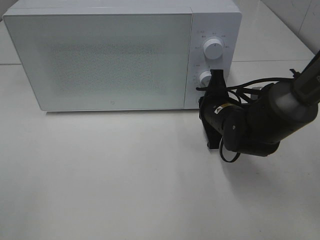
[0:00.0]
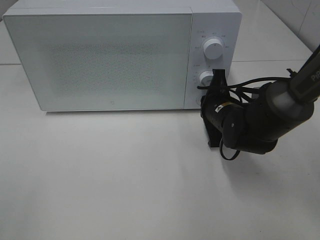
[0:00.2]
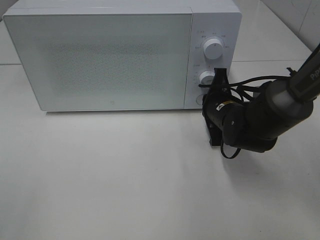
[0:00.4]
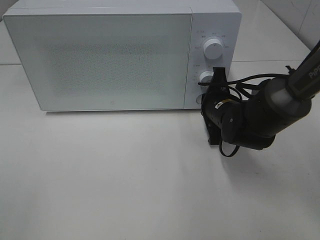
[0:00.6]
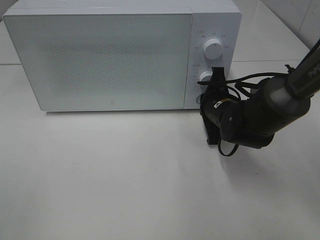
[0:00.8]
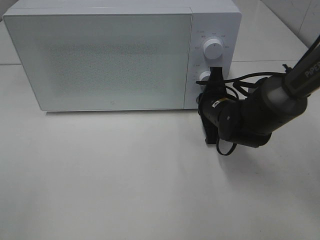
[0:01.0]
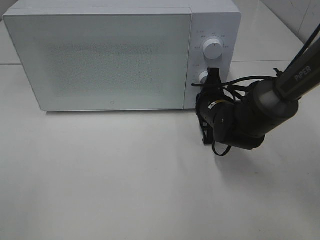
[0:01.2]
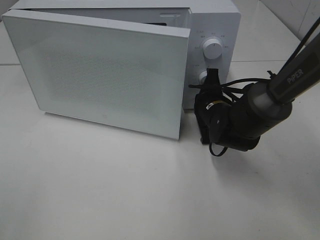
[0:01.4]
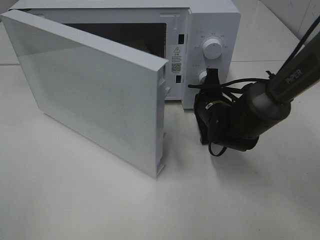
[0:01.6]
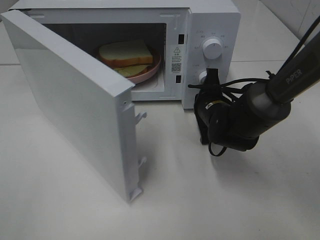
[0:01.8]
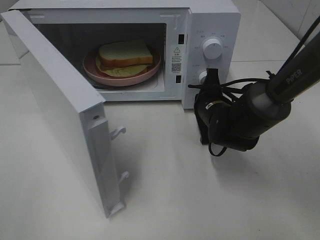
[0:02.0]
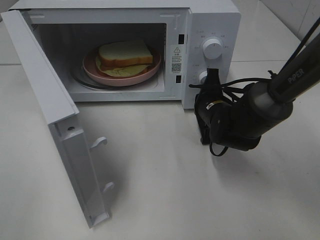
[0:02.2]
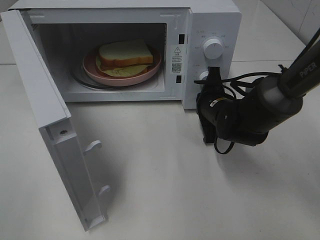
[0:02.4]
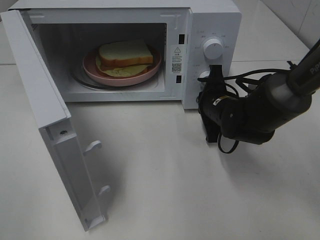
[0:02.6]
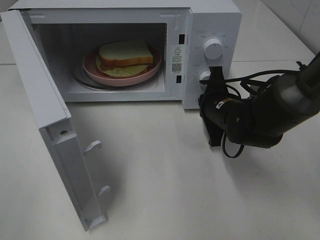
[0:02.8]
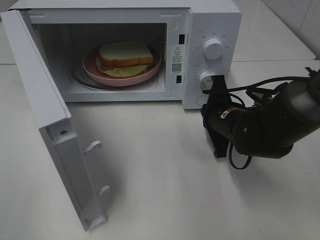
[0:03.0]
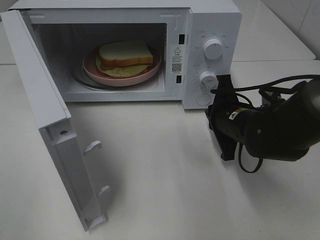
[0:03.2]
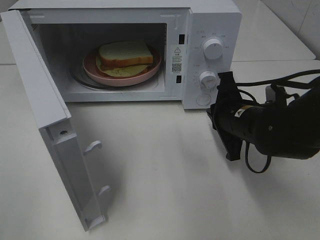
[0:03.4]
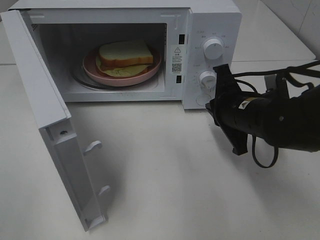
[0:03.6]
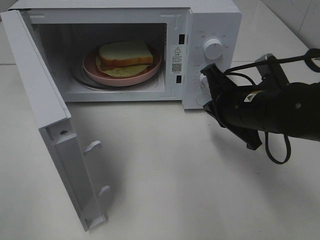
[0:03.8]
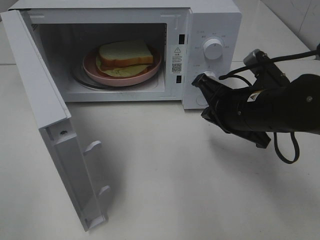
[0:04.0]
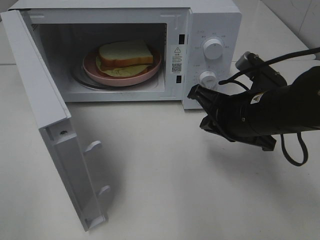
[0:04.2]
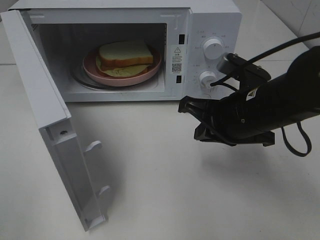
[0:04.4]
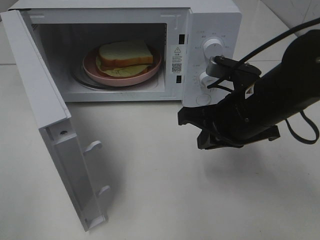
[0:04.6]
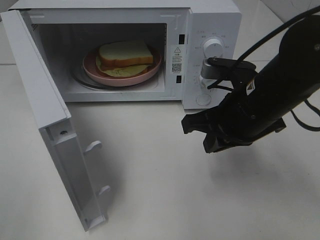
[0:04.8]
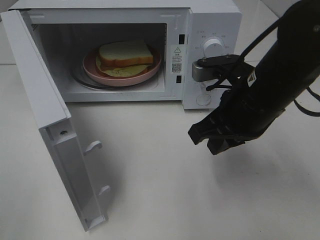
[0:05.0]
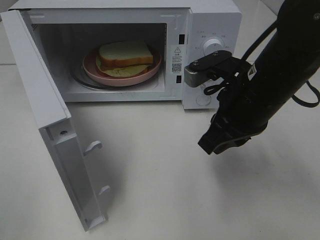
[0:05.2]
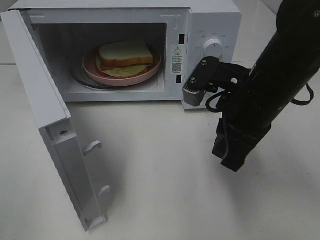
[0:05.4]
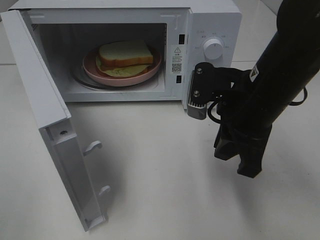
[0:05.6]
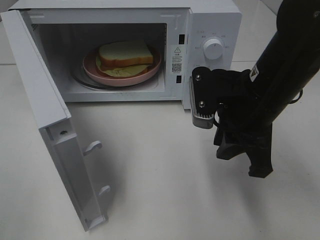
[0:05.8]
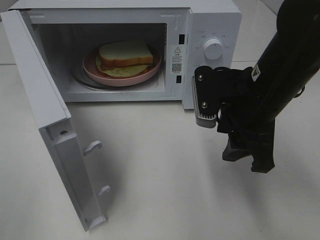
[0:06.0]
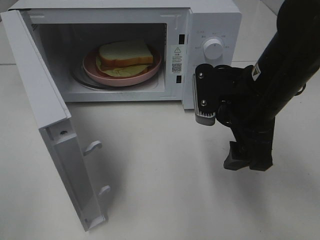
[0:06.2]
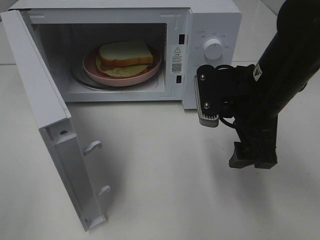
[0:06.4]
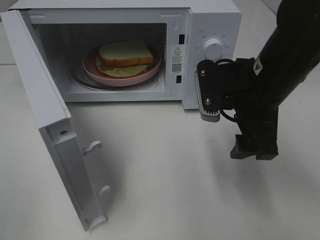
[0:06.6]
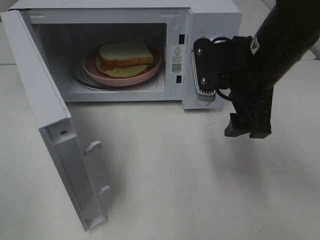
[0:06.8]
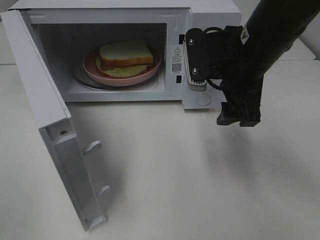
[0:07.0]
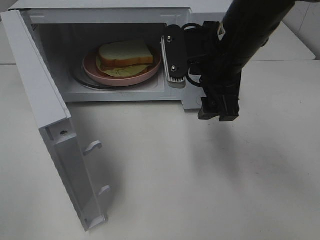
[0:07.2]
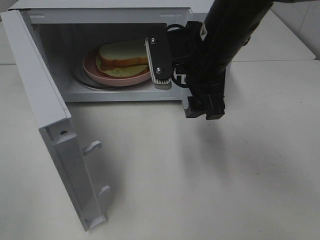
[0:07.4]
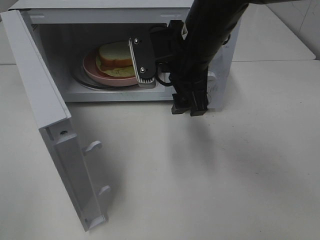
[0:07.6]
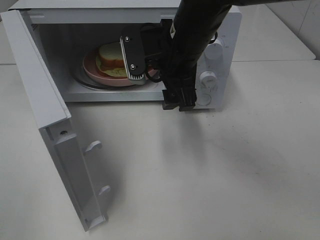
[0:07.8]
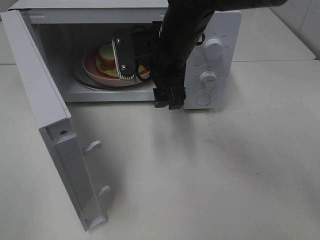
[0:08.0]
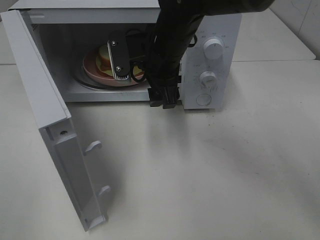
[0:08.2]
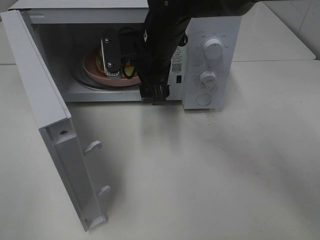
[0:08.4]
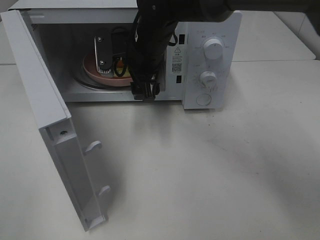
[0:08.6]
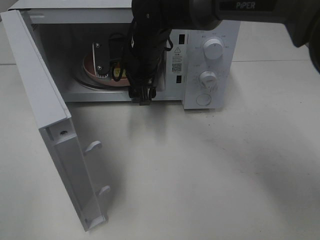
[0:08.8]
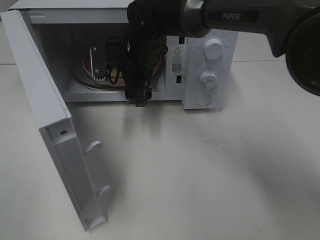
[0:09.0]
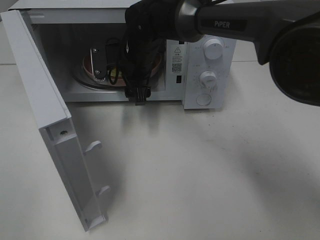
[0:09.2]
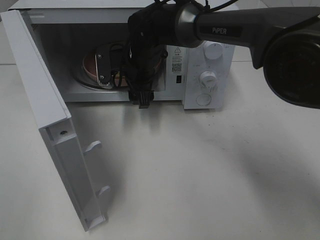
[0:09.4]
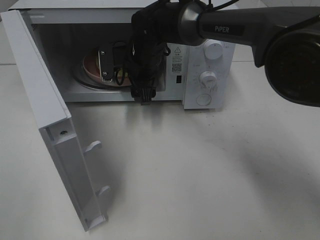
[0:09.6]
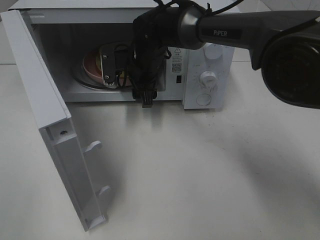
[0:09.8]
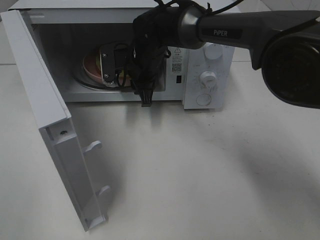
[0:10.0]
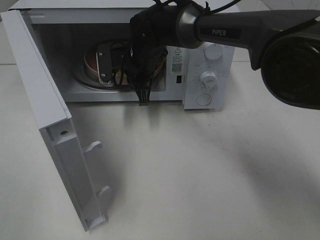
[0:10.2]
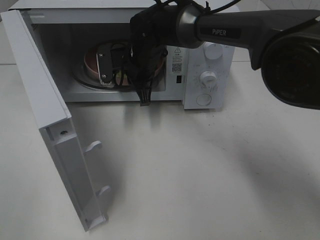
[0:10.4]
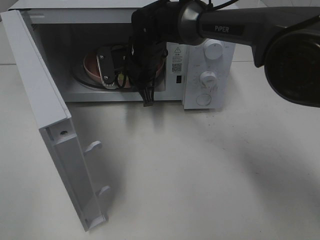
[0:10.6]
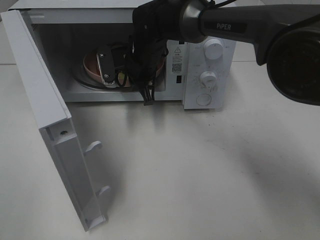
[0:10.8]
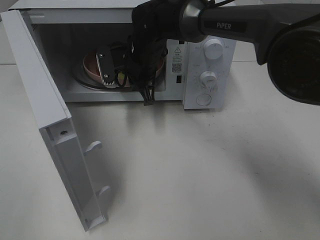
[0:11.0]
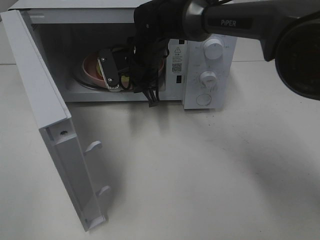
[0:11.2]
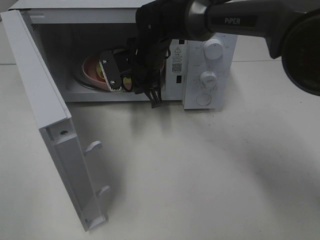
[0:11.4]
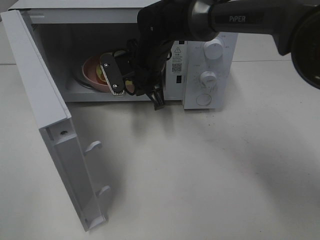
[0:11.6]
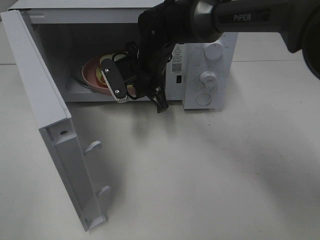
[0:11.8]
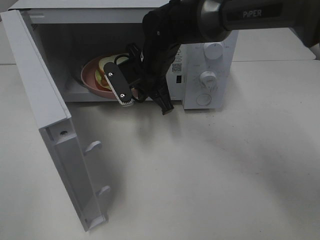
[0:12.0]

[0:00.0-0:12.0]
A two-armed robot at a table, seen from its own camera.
Task of the whole recording: Heat Sandwich.
Step, 0:00.0 to 0:03.0: Right hand: press the switch.
Step, 0:03.2 to 0:11.2: Right hand: grab the plate with the sandwich.
0:03.0 to 0:04.4: The right gripper goes about 10 cm upward and backward.
0:04.4 to 0:06.0: The right gripper opens its fingers.
0:06.0 to 0:07.6: The right gripper moves to the left and forward, roughly 10 cm.
0:07.6 to 0:09.0: The right gripper heads forward, to the left and downward, covering some 15 cm.
0:09.0 to 0:10.4: The right gripper closes up.
0:10.4 to 0:12.0: The right gripper changes place by about 5 cm.

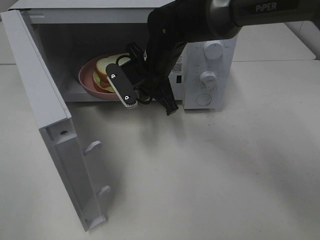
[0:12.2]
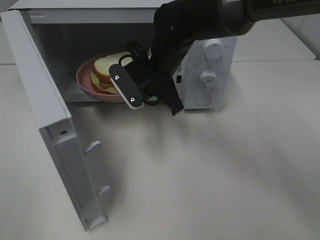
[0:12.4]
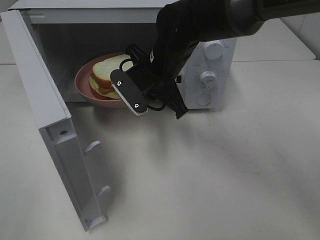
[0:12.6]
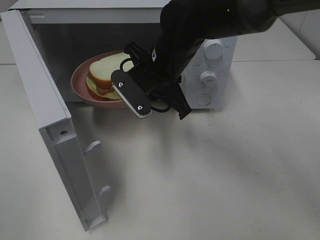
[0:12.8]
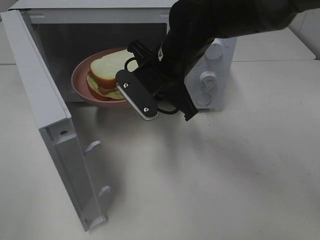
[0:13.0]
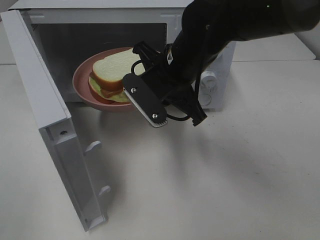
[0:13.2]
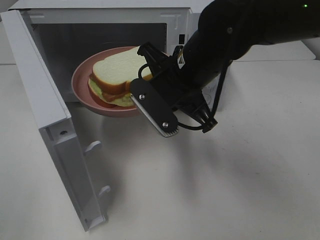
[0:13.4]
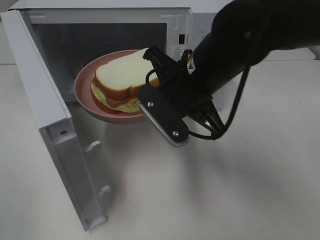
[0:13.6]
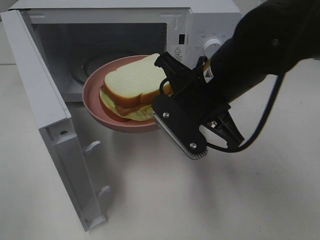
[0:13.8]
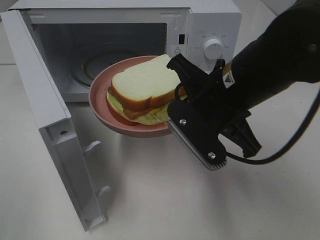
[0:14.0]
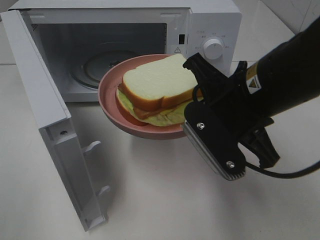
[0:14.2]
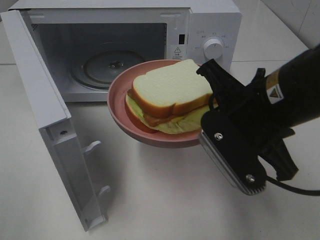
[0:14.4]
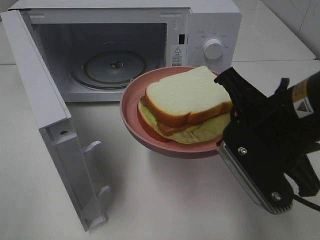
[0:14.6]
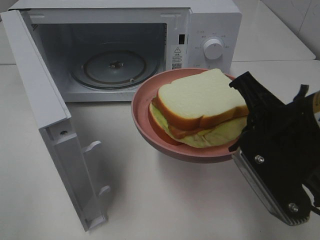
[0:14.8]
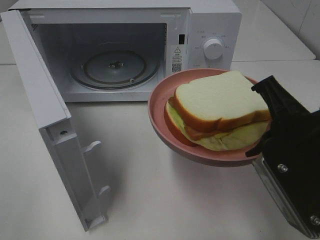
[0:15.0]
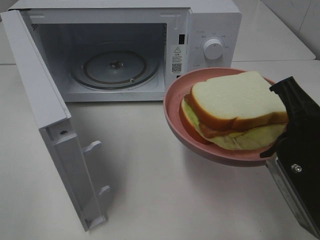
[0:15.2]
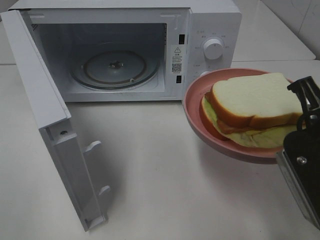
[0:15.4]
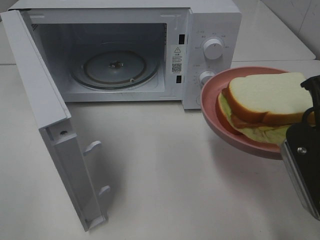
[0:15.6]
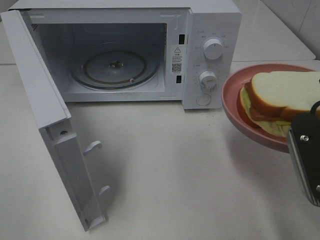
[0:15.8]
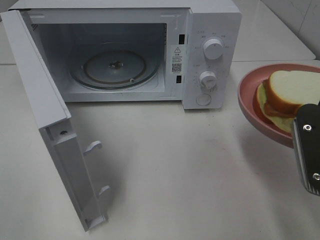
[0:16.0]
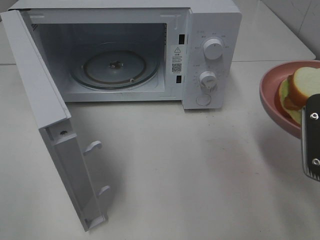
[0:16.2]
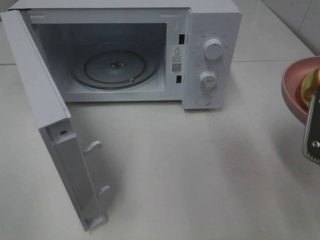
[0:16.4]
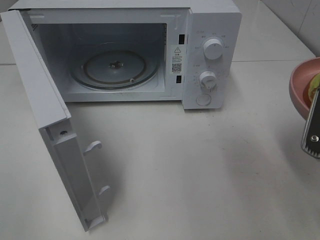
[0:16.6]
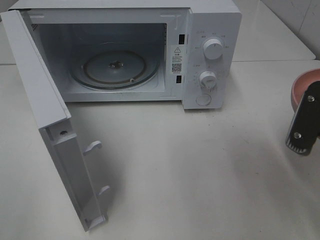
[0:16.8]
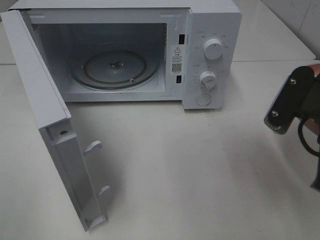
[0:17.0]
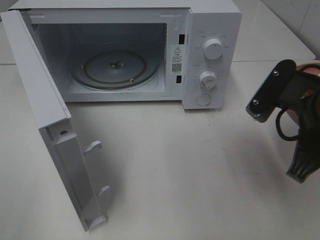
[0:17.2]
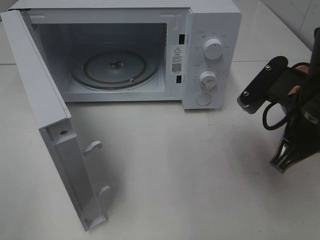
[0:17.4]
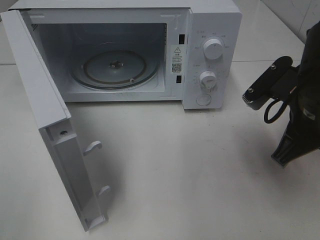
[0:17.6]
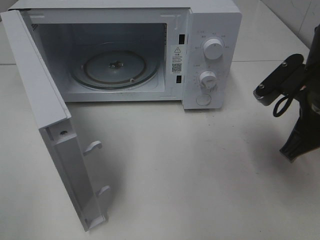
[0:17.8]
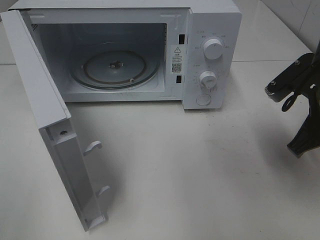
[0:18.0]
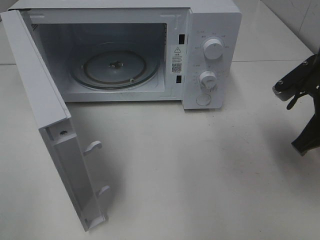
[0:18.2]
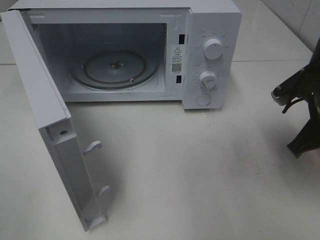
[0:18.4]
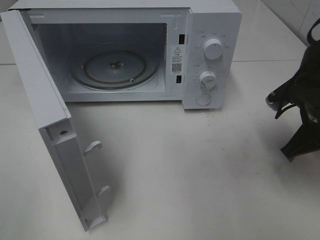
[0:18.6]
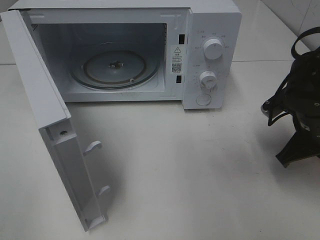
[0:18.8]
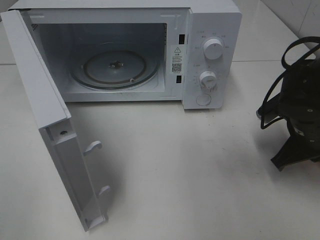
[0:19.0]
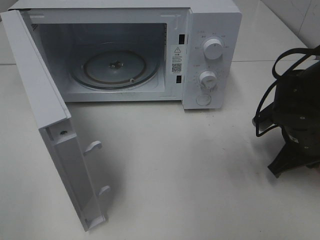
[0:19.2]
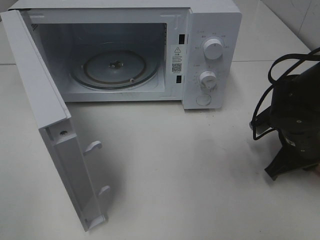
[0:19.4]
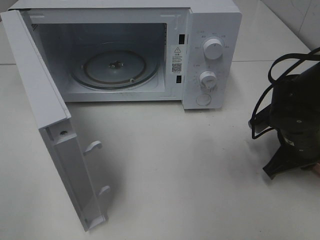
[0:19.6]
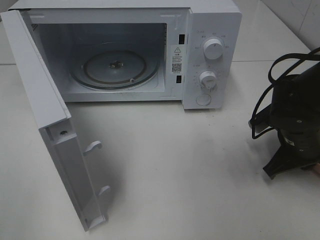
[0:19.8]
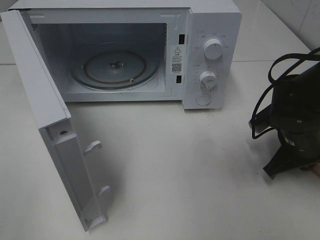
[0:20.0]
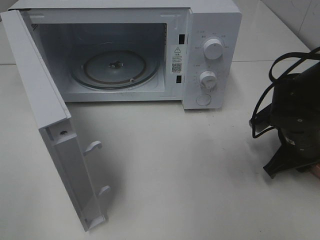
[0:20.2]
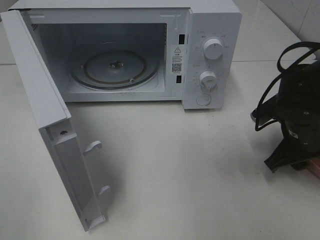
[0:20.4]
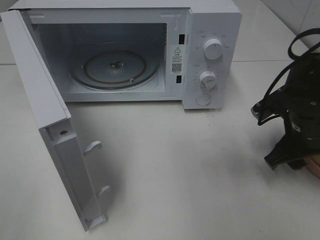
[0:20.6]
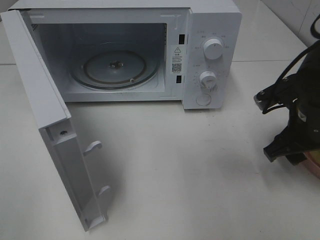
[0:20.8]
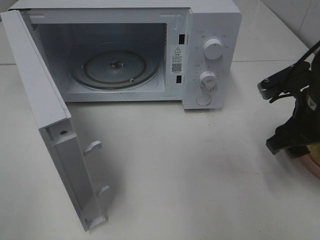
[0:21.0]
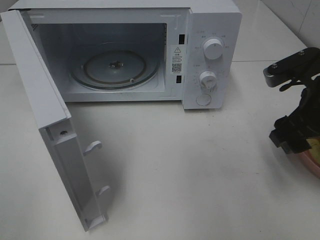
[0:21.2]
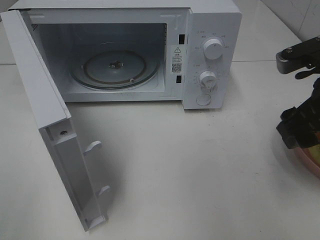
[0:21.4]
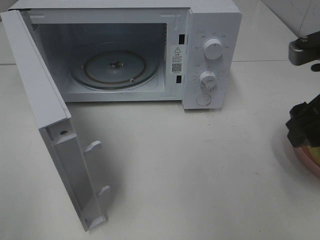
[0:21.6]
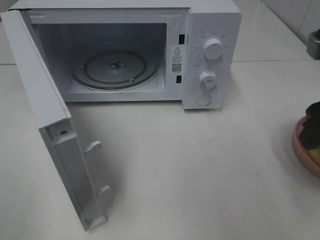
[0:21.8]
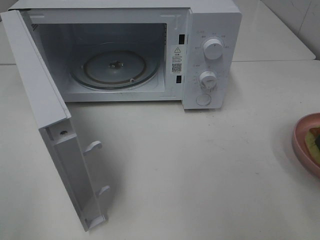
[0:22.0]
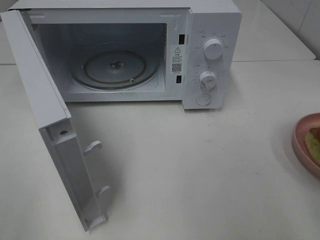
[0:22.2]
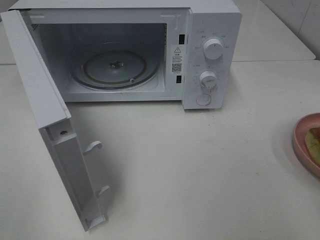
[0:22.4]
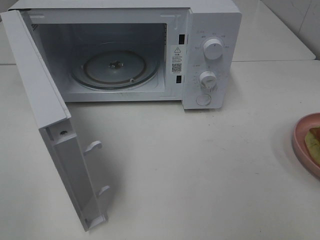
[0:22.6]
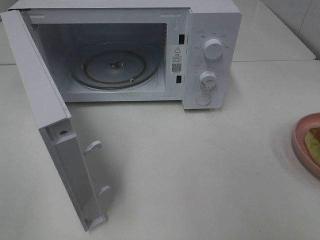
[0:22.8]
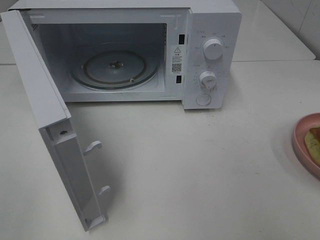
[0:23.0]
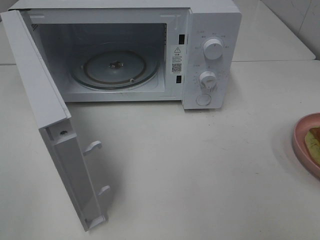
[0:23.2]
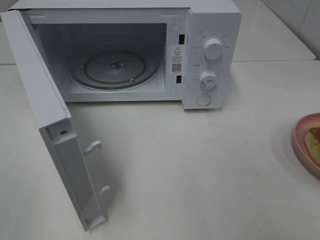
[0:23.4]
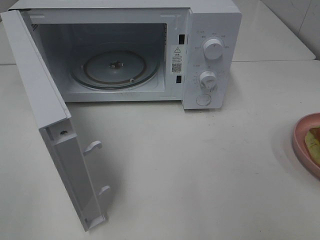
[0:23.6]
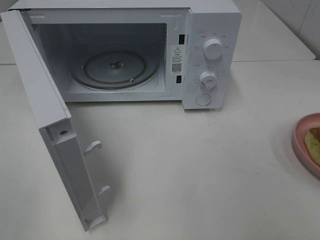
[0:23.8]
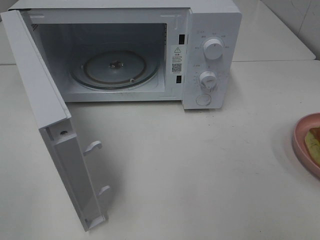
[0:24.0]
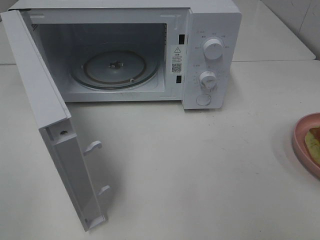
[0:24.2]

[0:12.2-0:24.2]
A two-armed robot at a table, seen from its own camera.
Task of the whole recording: Heat Sandwich.
Step, 0:12.2 to 0:21.6: Right hand: place the plate on the table.
0:12.2 to 0:13.8: The right gripper moves backward and to the right, approximately 15 cm.
0:13.8 to 0:15.2: The right gripper moves to the right and backward, about 15 cm.
0:16.6 to 0:18.2: The right gripper travels forward by about 10 cm.
0:18.2 to 0:19.8: The right gripper goes some 10 cm downward.
0:19.8 to 0:21.2: The right gripper moves upward, roughly 10 cm, and opens its fingers.
0:21.2 to 0:22.6: The right gripper travels backward and upward by about 15 cm.
